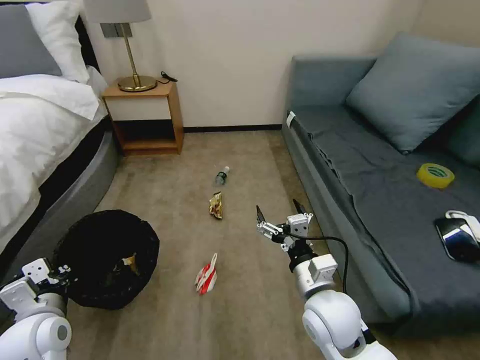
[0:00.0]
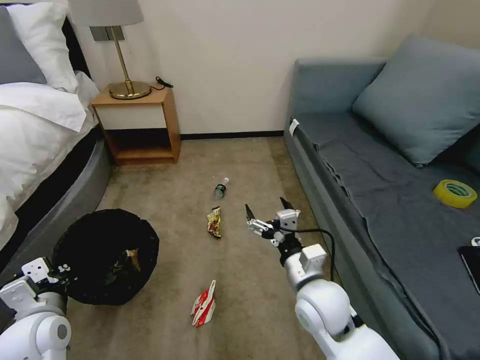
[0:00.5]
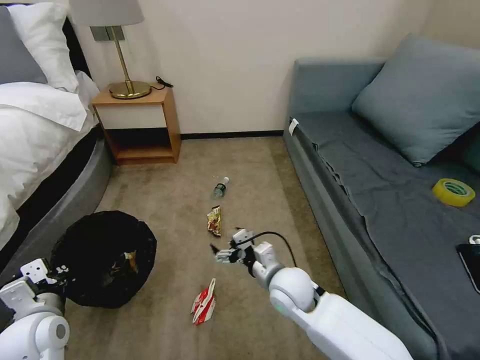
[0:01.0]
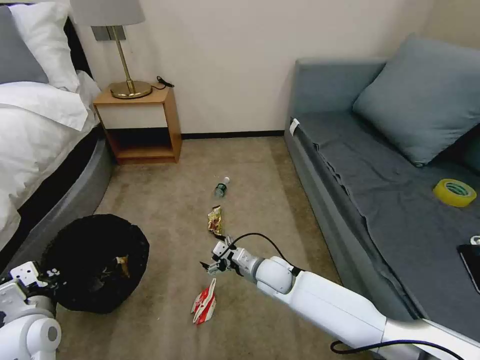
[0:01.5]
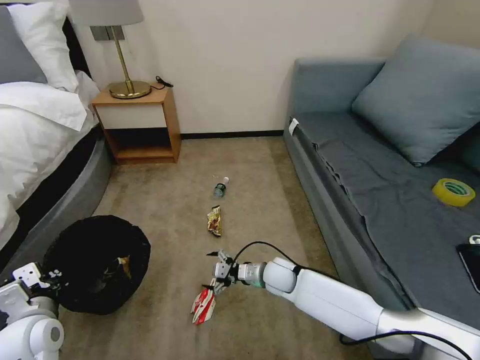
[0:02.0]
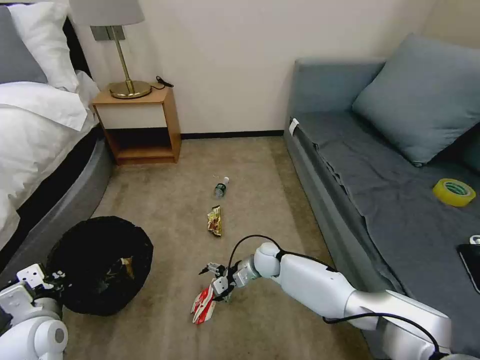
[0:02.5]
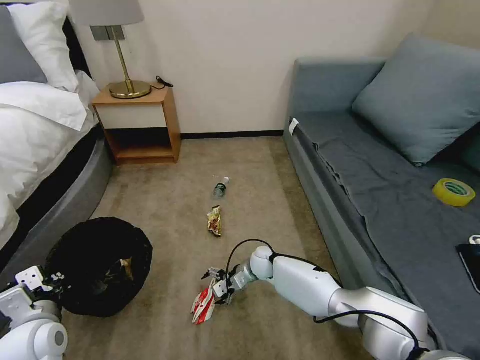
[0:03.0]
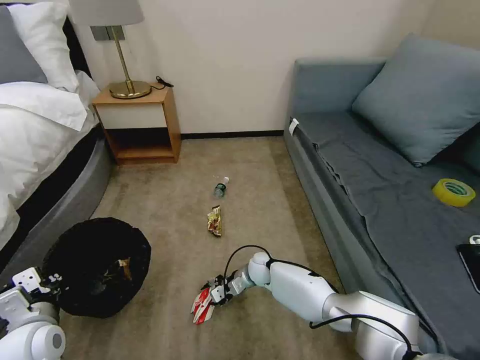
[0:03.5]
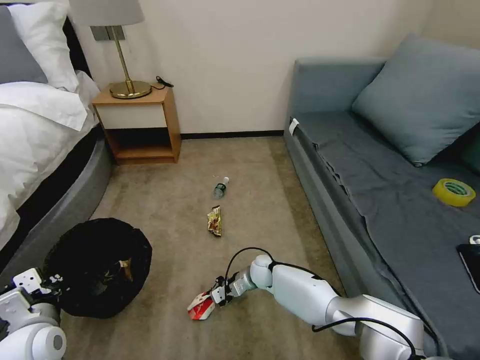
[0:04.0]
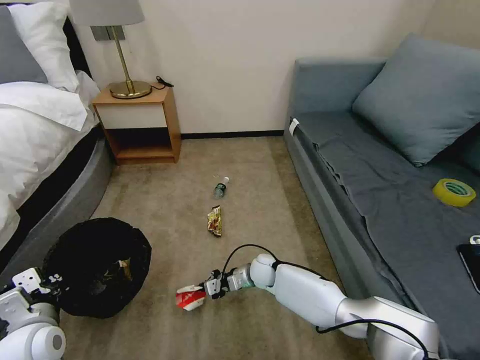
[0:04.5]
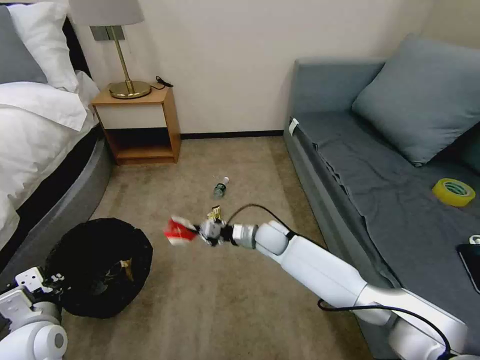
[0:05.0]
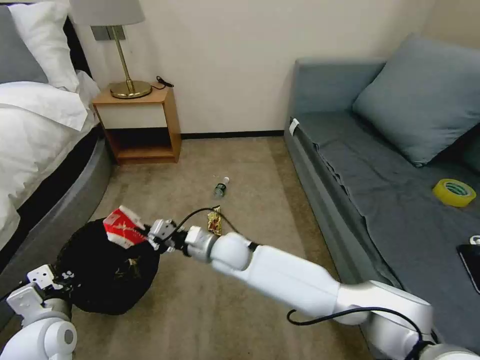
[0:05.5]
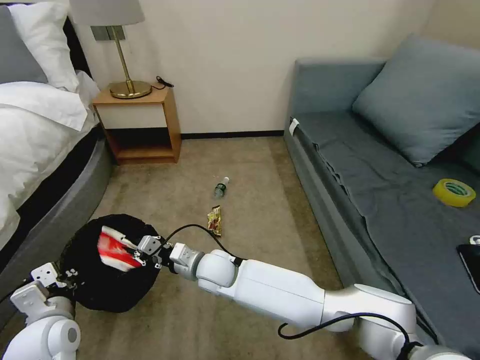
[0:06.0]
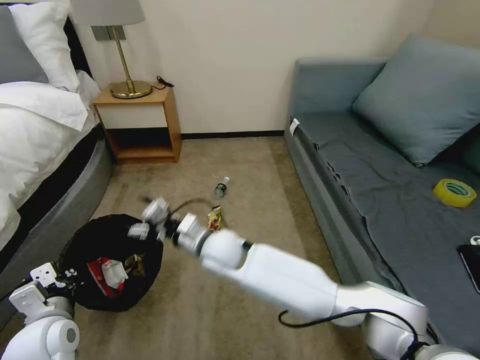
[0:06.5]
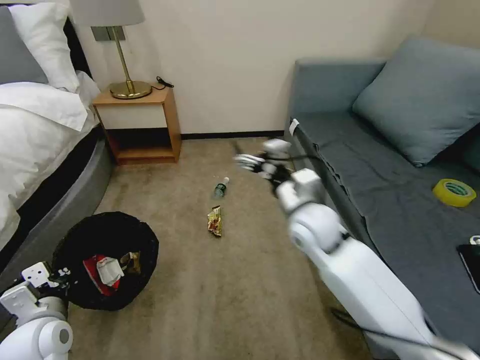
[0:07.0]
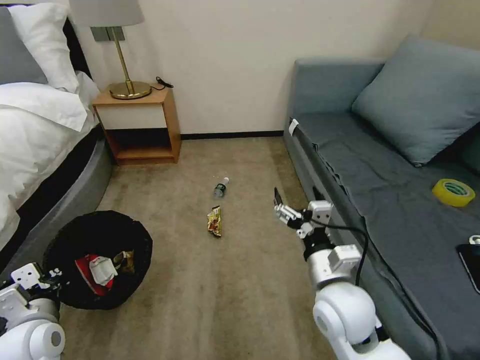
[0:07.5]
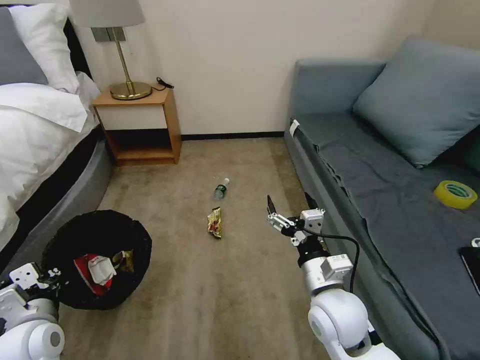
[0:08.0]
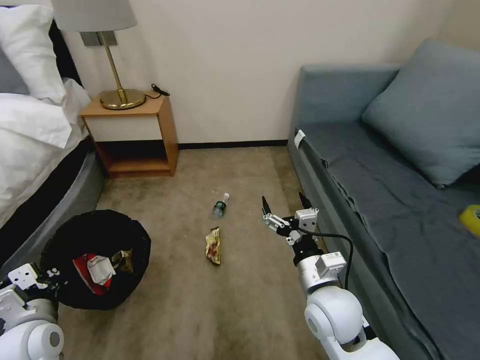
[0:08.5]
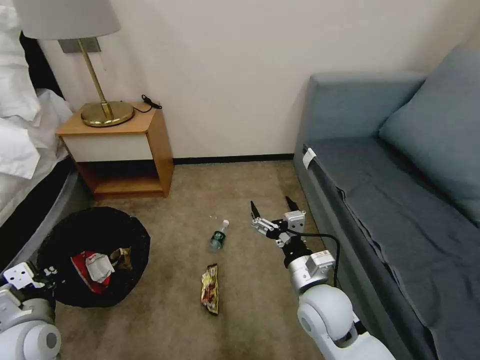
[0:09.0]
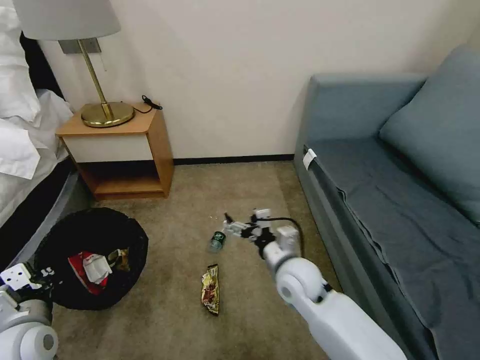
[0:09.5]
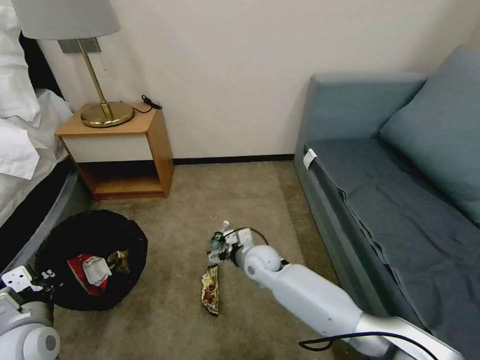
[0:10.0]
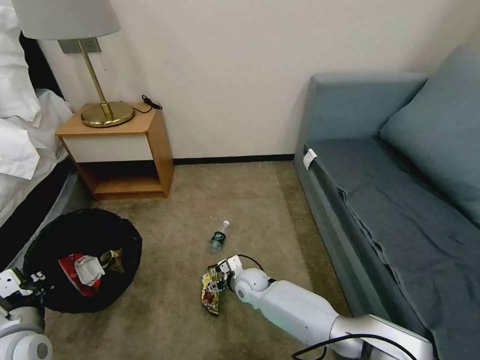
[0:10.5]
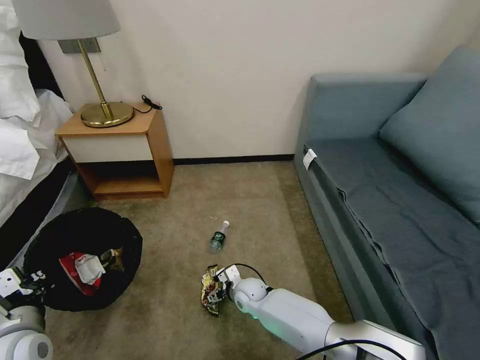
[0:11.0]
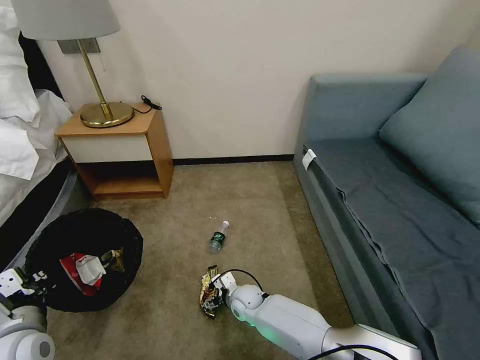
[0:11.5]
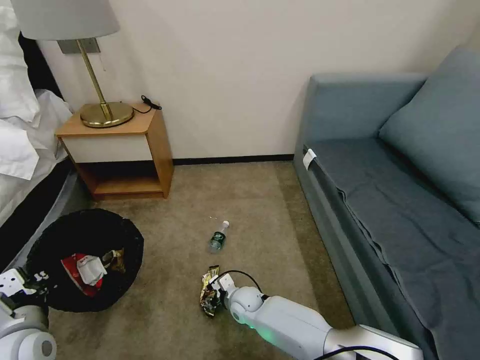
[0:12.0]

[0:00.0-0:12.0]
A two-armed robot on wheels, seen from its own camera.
Task of the whole recording: Pick up the trash bin, then pick up the garbage on the floor and place it into the trash bin.
0:00.0 to 0:02.0: The right gripper is displaced downward and forward by approximately 20 cm.
0:02.0 to 0:04.0: The right gripper goes some 5 cm downward, and closes up.
0:04.0 to 0:06.0: The right gripper goes about 25 cm upward, to the left and backward.
0:06.0 to 0:08.0: The right gripper moves to the right and backward, about 25 cm, and opens its fingers.
0:08.0 to 0:10.0: The right gripper goes about 25 cm forward, downward and to the left.
0:10.0 to 0:12.0: The right gripper travels downward and backward by approximately 15 cm, and closes.

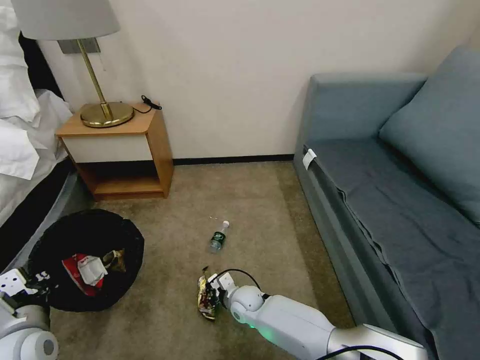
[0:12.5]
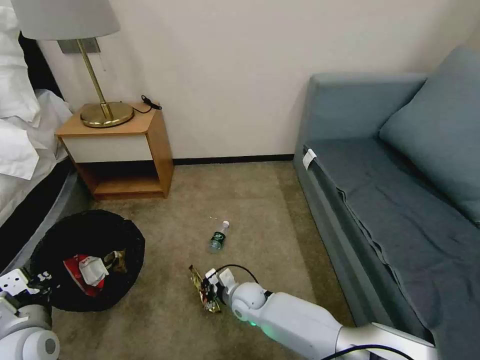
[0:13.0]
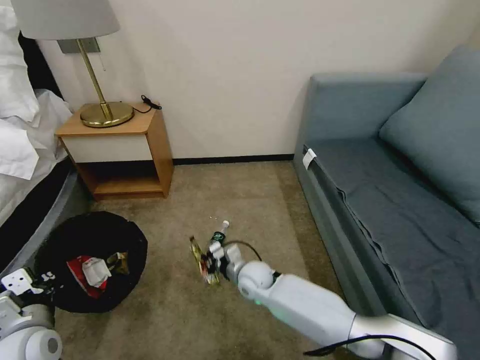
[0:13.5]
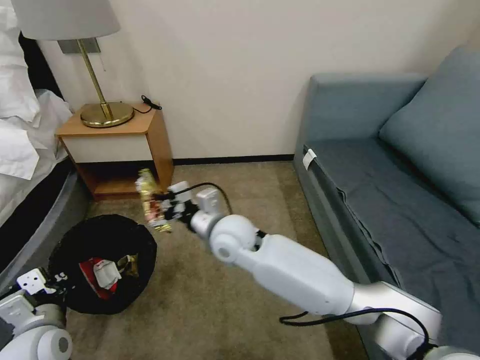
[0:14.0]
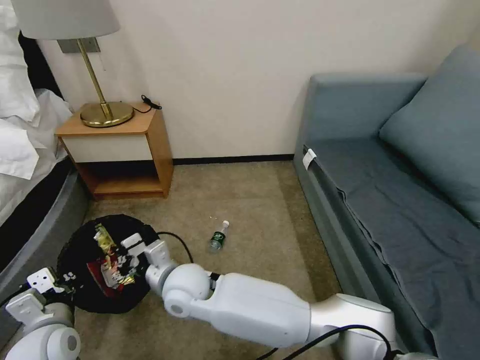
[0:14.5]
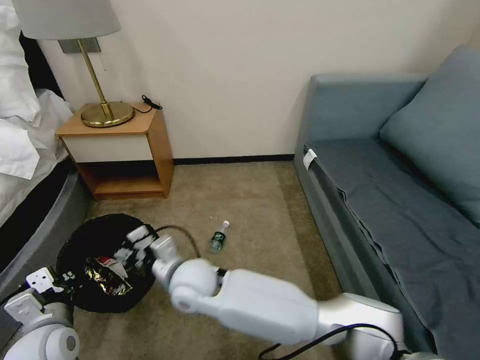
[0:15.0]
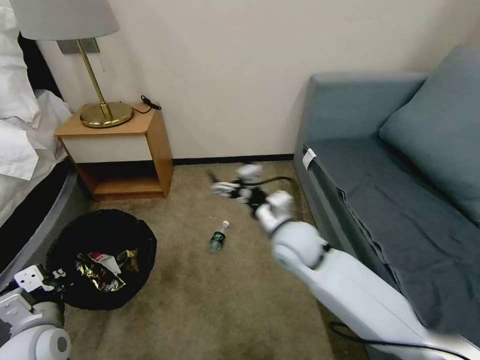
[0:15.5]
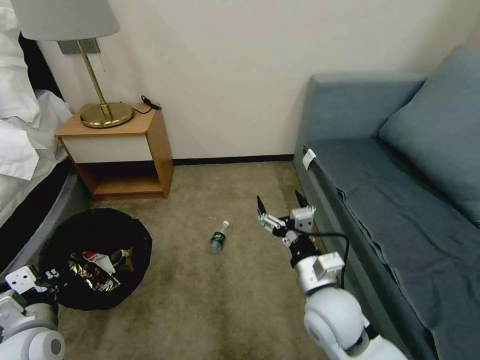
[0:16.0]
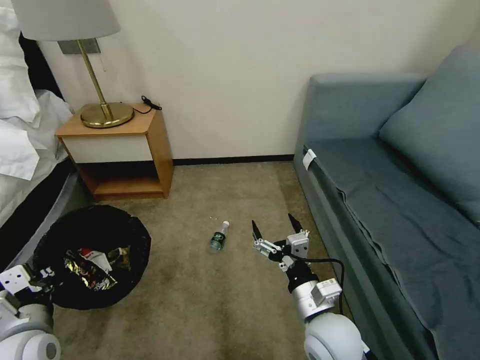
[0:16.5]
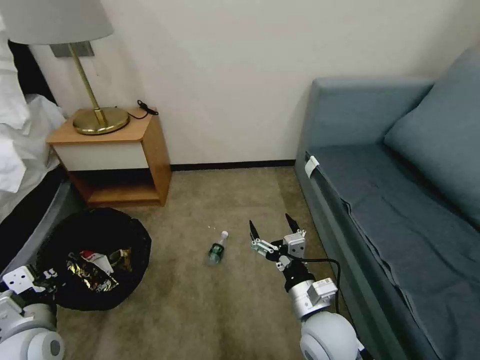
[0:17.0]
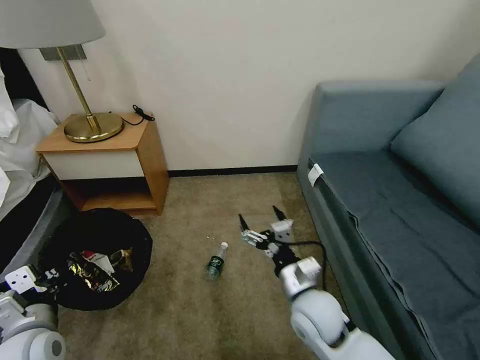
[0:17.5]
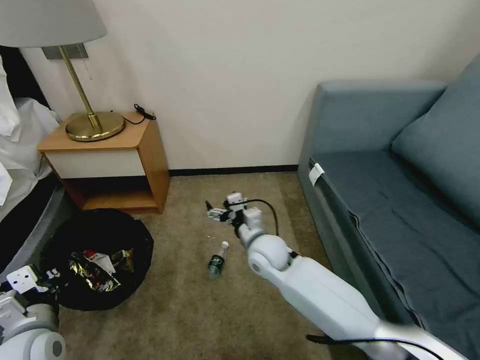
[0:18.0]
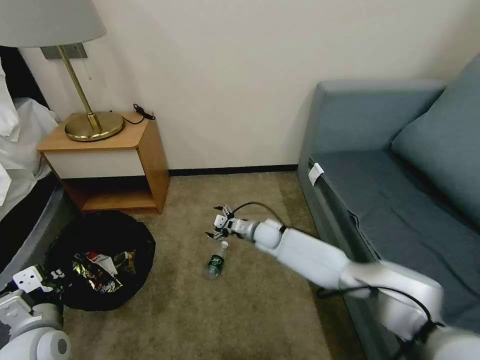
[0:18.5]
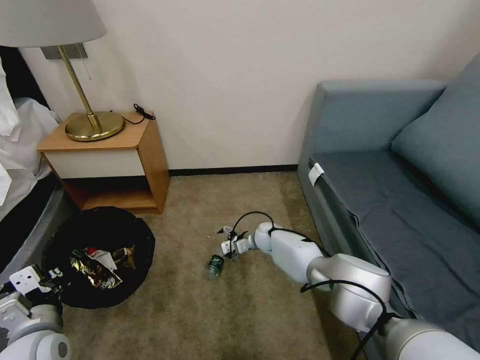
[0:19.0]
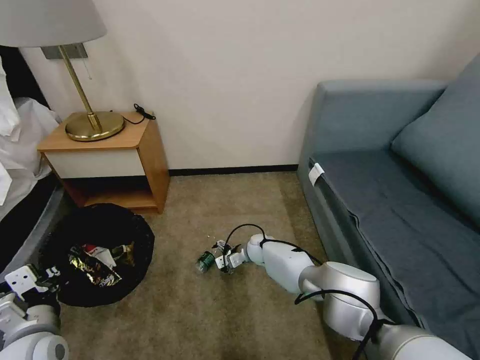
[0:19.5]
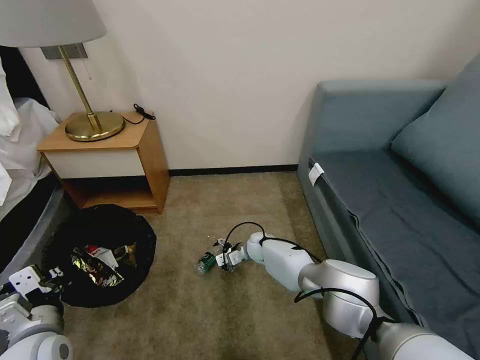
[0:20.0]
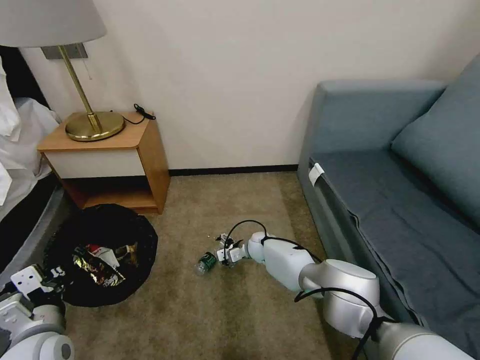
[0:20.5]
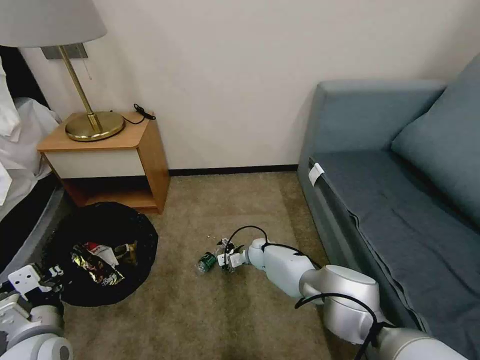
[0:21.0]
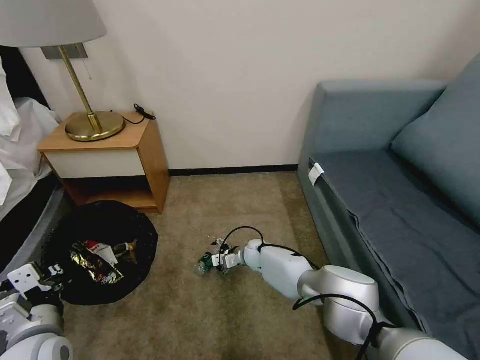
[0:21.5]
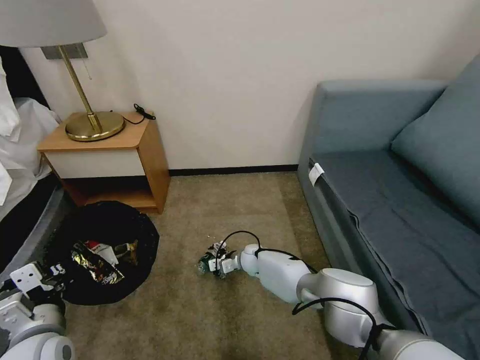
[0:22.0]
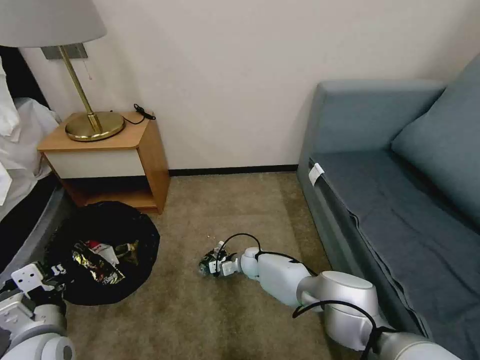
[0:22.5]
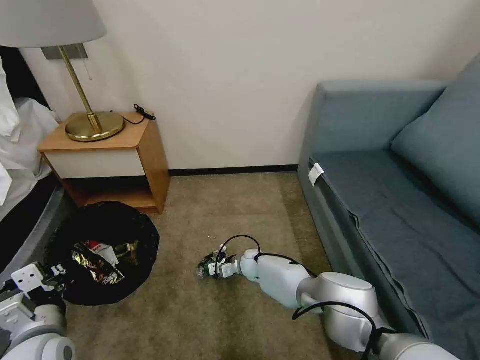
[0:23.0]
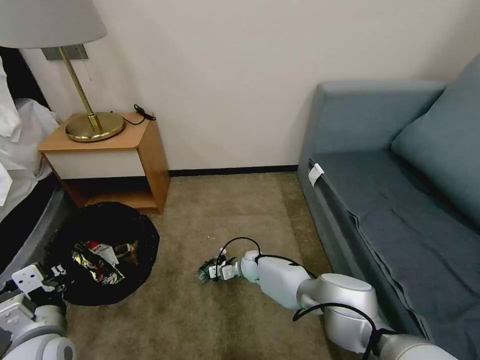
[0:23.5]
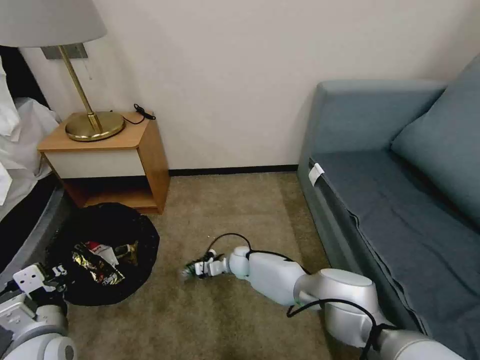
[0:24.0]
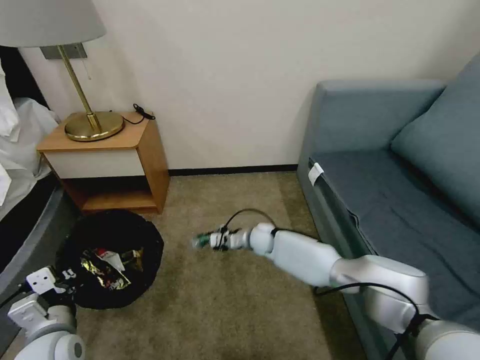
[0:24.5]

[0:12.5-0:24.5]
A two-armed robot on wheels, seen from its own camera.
Task of the whole recording: Pick up the trash bin, then pick up the garbage on the floor and place it into the trash bin.
0:12.5 to 0:14.5: The right gripper is displaced upward and to the left by roughly 25 cm.
0:14.5 to 0:16.5: The right gripper goes about 30 cm to the right, and opens its fingers.
0:16.5 to 0:18.5: The right gripper moves forward, roughly 30 cm.
0:18.5 to 0:20.5: The right gripper travels downward by about 10 cm.
0:20.5 to 0:22.5: The grippers stay close to where they were, moving slightly.
0:22.5 to 0:24.5: The right gripper is displaced upward by approximately 10 cm, and closes up.

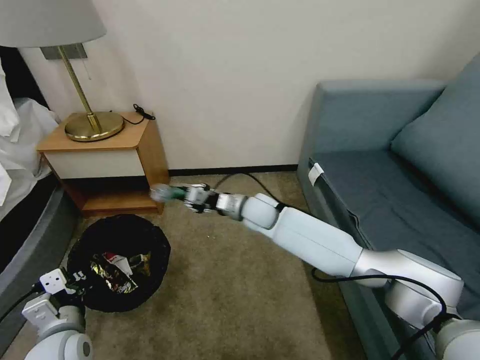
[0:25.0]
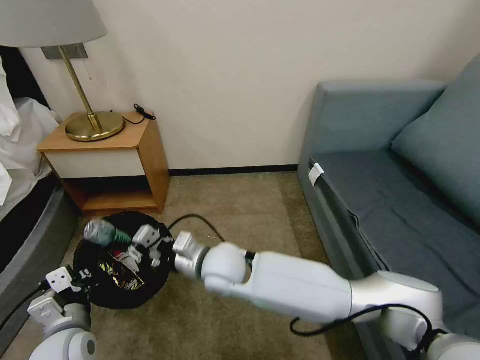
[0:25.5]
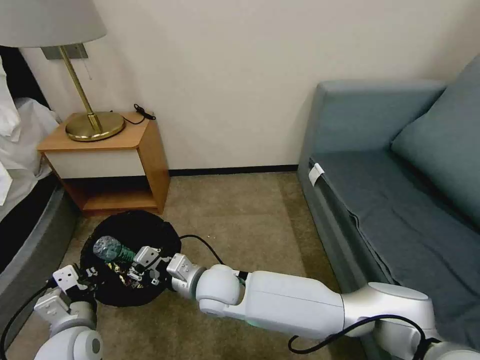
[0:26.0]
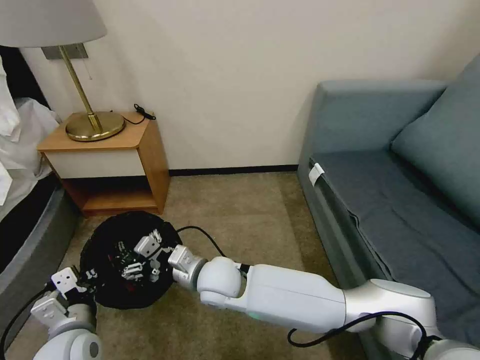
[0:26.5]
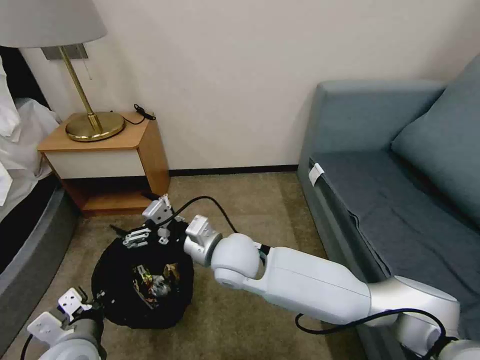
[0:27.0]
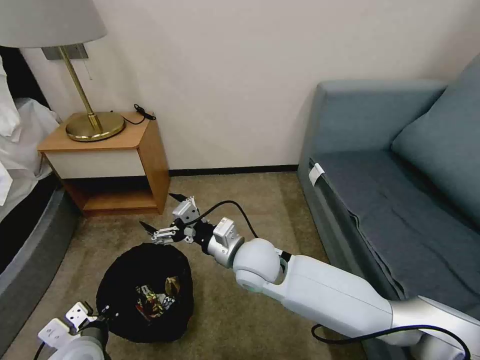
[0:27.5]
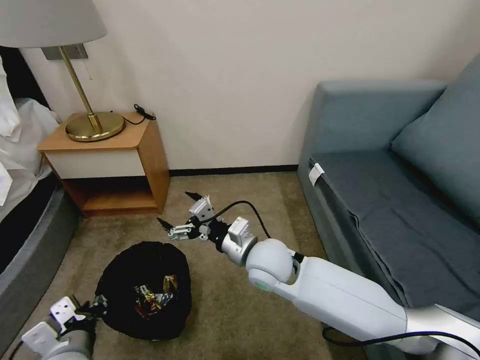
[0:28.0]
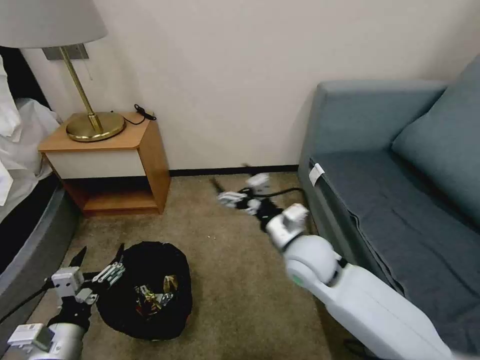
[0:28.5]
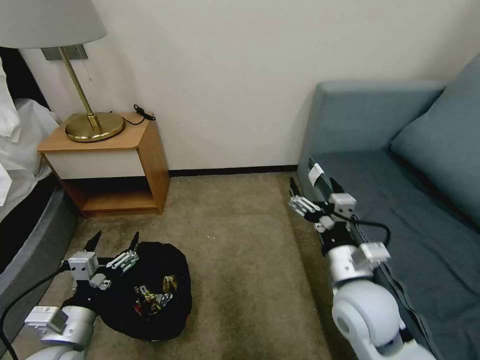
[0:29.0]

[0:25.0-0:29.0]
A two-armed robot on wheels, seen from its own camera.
Task of the whole recording: Pick up the trash bin, then pick up the garbage on the floor and place it into the trash bin.
0:25.0 to 0:27.0: The right gripper heads backward, covering roughly 15 cm, and opens up.
0:27.0 to 0:29.0: The right gripper is displaced to the right and backward by roughly 25 cm, while the left gripper opens up.
